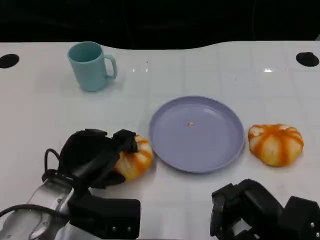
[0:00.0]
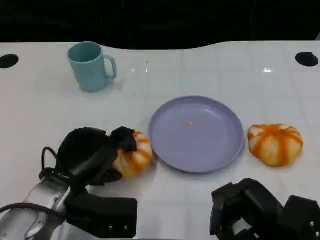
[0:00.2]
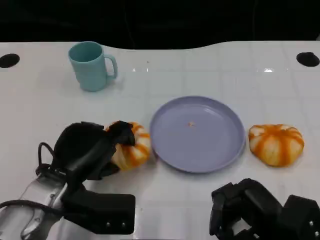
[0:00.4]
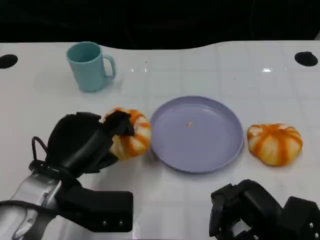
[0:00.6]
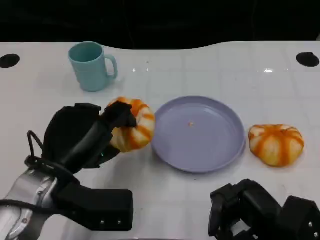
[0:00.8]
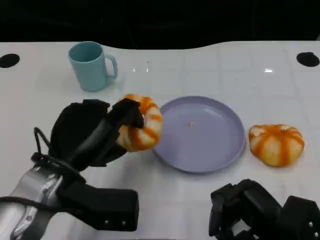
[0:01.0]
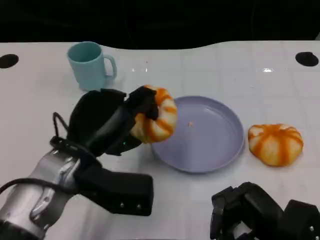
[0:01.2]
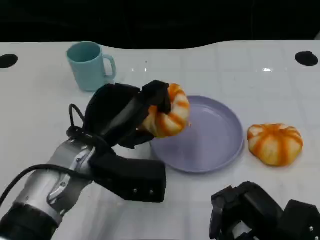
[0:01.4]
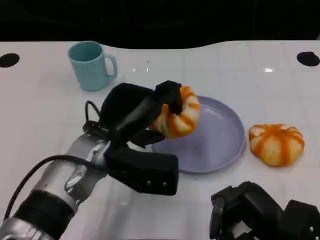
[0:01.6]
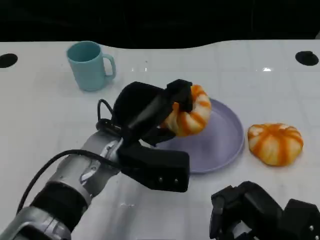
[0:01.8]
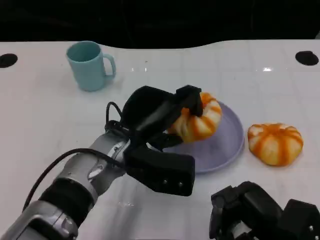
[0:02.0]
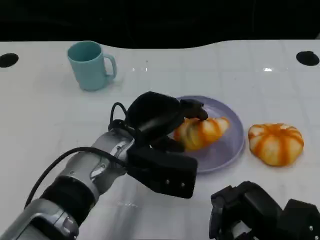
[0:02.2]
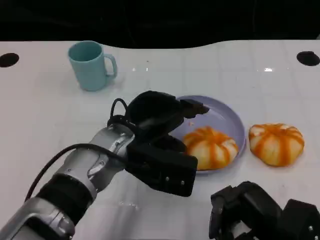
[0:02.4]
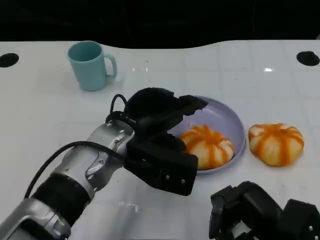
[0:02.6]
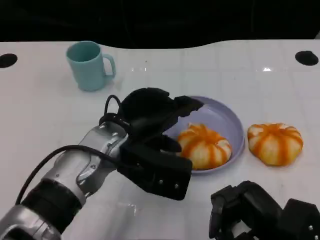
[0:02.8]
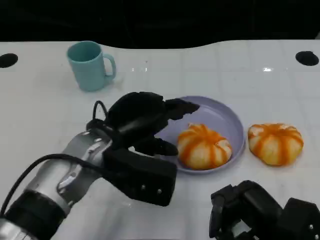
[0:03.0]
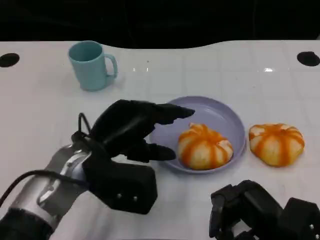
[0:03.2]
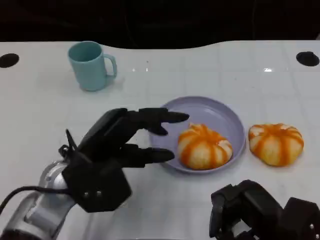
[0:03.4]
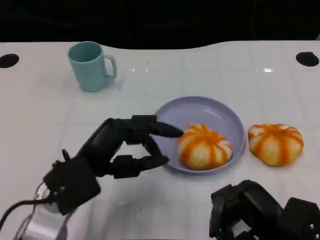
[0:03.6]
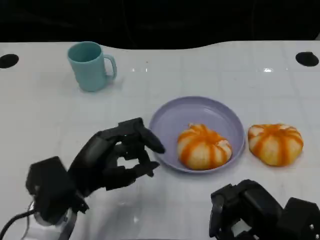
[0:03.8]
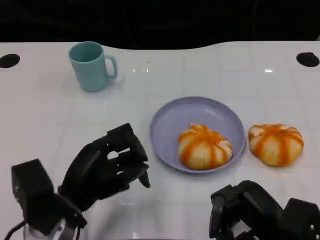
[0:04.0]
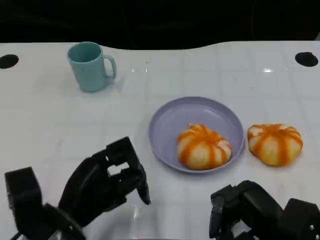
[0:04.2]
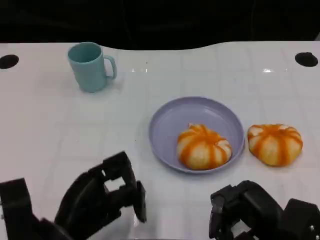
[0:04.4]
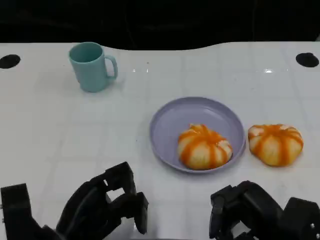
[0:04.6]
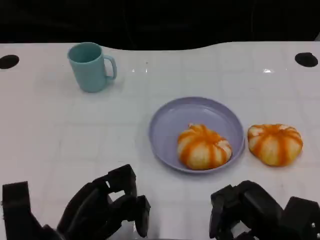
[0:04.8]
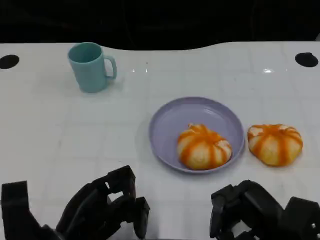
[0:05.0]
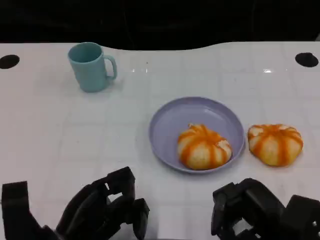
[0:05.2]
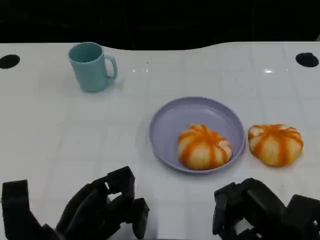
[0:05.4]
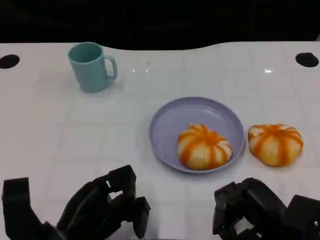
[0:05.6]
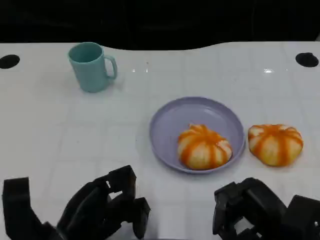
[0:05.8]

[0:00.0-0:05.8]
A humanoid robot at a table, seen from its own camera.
Task of the whole recording: Grasp the bread from the table and place it into the plate.
0:00.0 to 0:01.4: The left hand moves upward, about 5 cm.
0:02.8 to 0:04.4: The left hand is displaced backward, to the left and downward by approximately 15 cm.
0:04.4 to 0:05.8: There are only small adjustments of the hands.

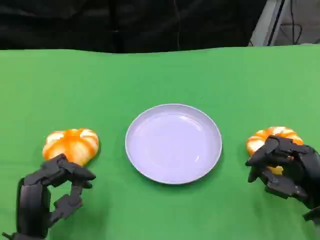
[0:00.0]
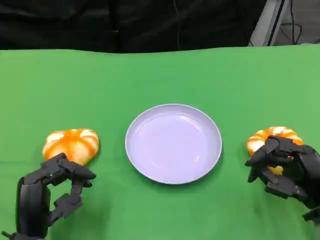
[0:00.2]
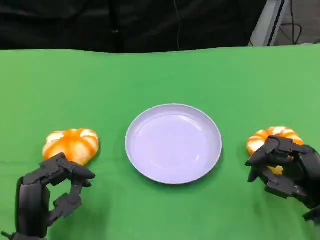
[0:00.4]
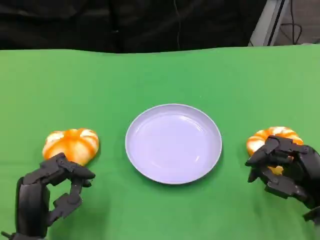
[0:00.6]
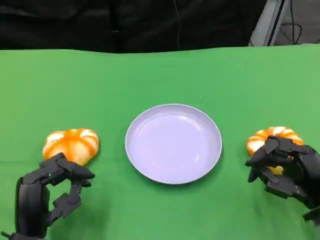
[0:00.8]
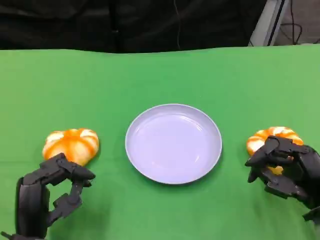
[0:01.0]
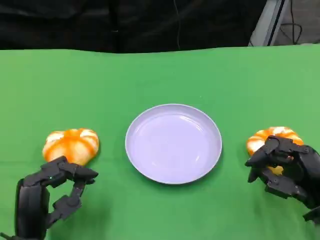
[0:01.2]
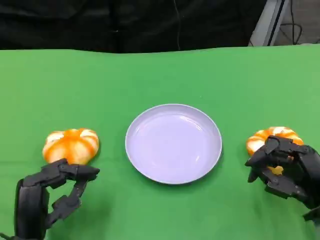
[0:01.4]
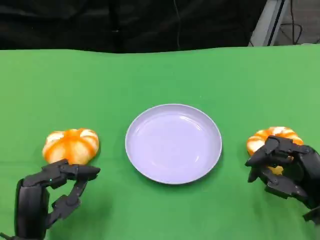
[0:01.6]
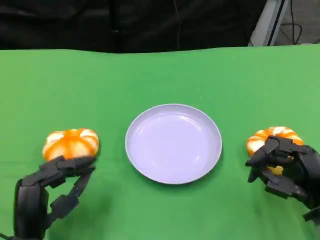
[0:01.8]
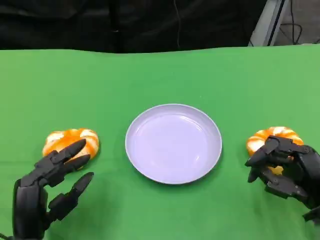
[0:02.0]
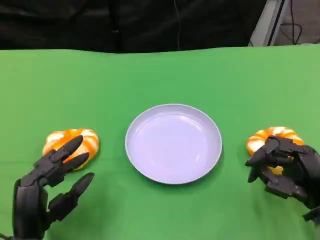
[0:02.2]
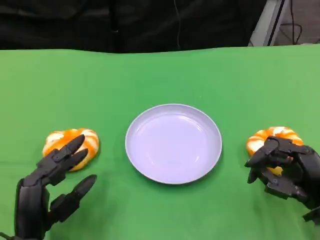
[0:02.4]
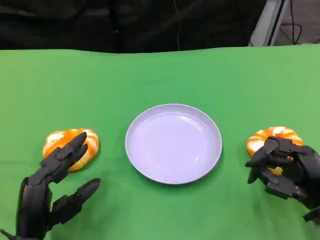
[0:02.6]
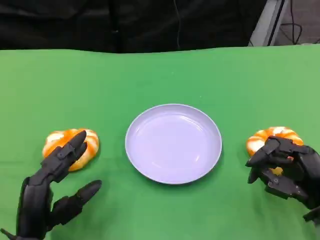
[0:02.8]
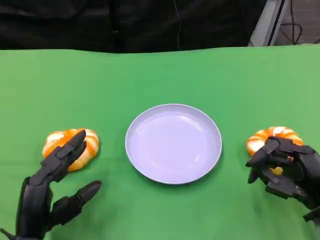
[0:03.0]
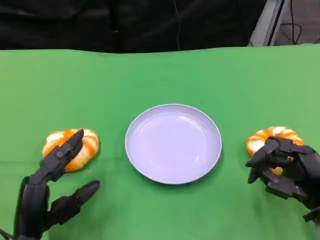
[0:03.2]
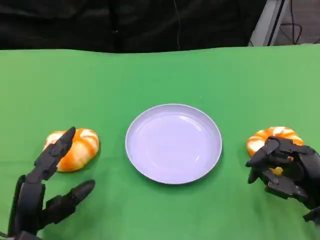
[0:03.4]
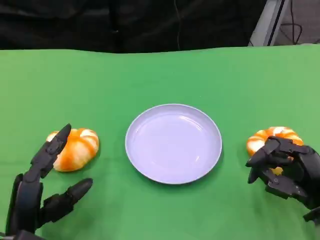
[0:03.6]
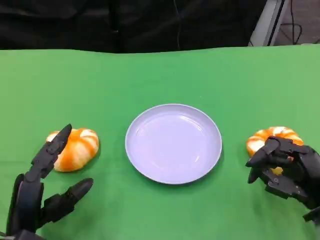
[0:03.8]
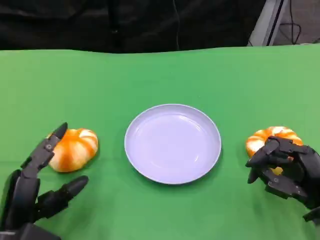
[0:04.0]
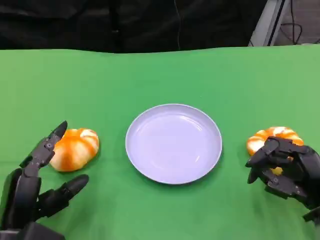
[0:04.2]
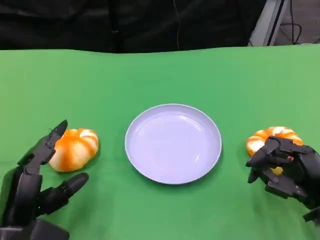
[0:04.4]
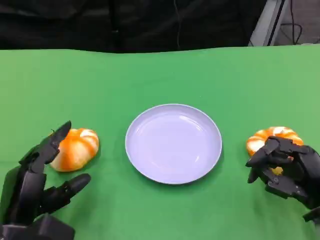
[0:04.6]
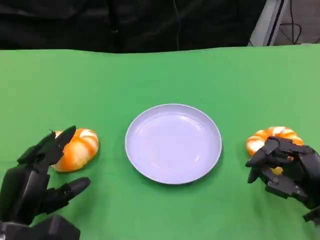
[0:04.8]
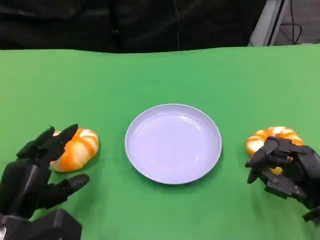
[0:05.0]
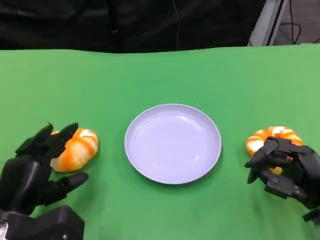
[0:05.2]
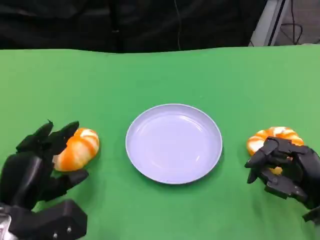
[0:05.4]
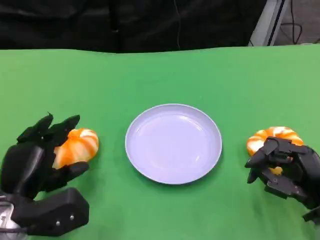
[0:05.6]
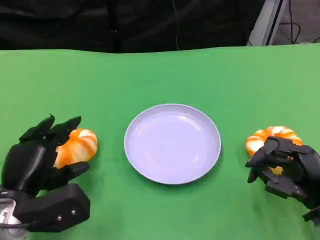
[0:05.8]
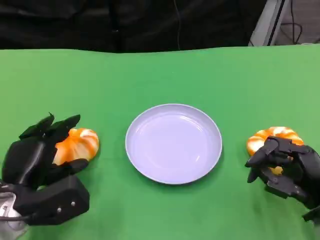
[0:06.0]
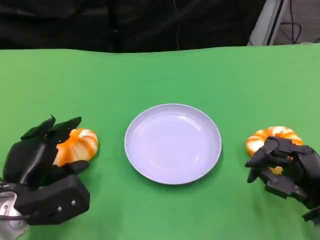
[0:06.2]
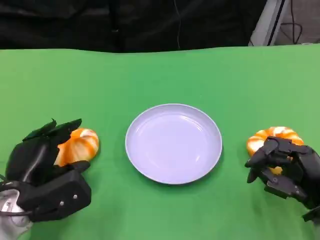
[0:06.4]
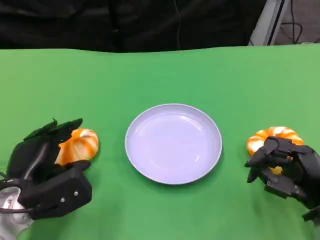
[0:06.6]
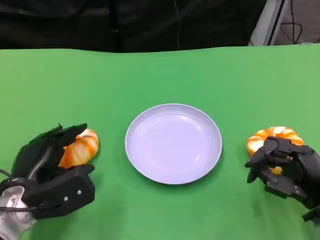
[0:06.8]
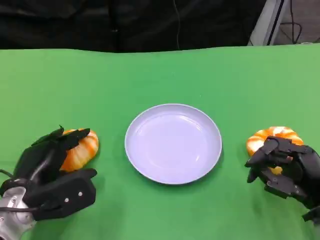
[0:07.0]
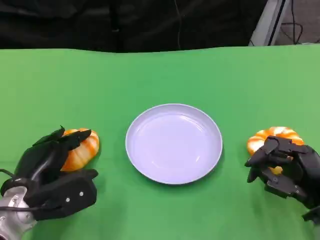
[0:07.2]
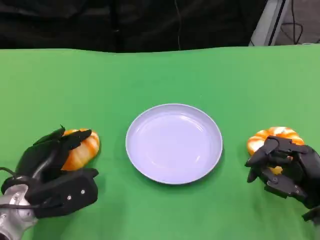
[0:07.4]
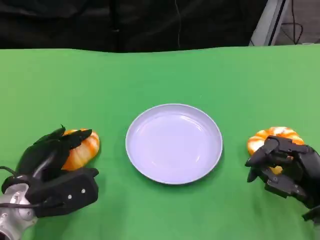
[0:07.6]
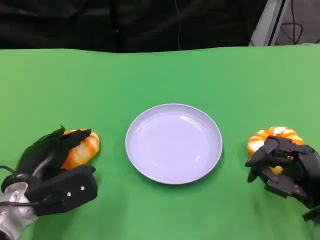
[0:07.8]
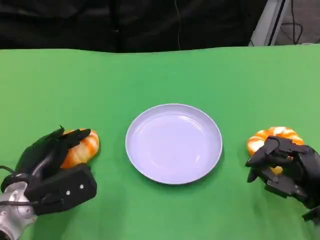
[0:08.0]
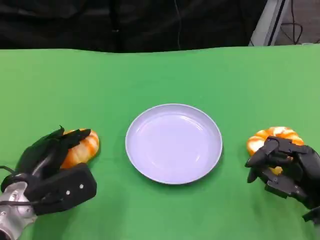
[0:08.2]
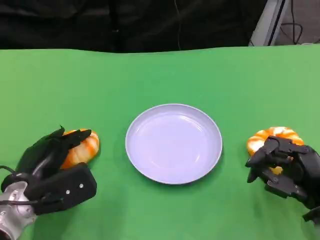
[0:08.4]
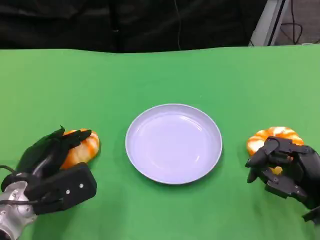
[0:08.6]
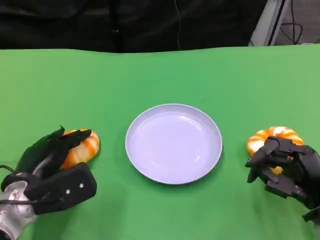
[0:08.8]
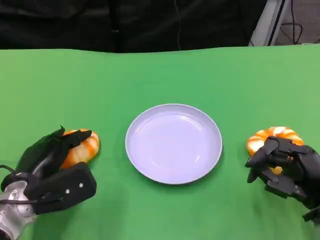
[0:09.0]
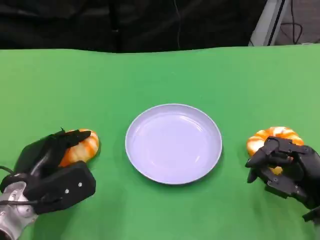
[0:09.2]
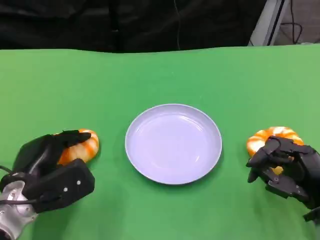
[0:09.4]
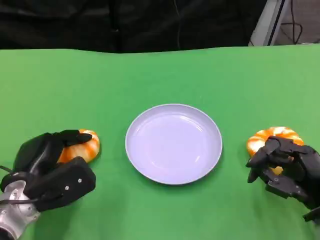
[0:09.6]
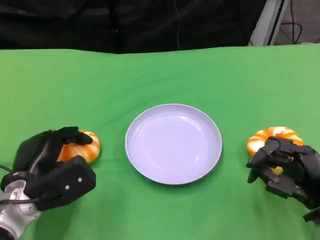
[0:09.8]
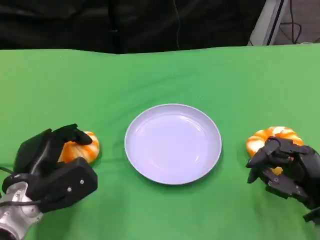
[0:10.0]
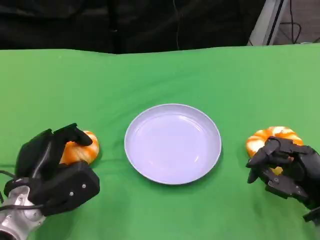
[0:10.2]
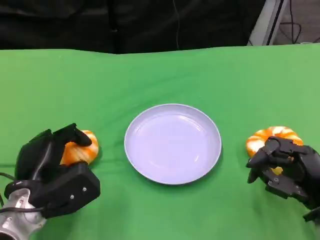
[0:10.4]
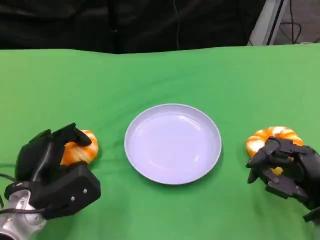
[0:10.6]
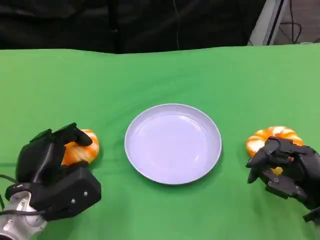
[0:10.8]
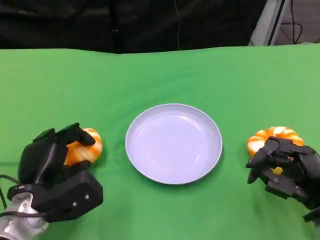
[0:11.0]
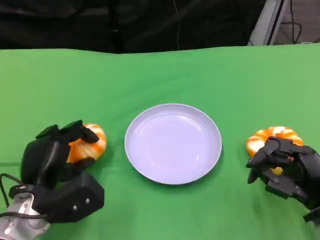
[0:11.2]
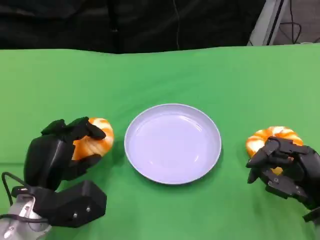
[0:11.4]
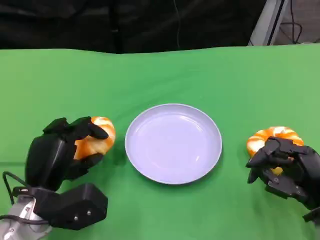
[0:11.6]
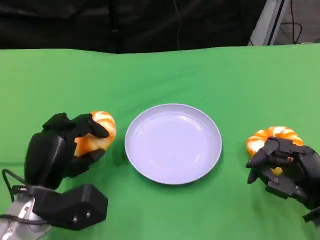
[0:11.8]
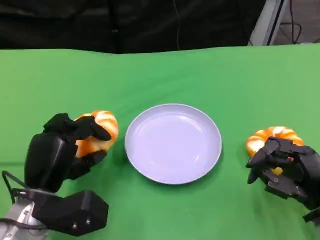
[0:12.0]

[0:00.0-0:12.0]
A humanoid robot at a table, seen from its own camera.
Task of the whole recording: Grasp the bread from the table and place it into the plate.
0:00.0 to 0:01.6: Neither hand changes place.
0:01.6 to 0:03.0: The hands stay close to where they were, moving slightly.
0:04.4 to 0:06.0: The left hand moves forward, about 5 cm.
0:06.0 to 0:07.6: The hands stay close to where they were, moving slightly.
0:07.6 to 0:09.0: Both hands stay put.
0:09.0 to 0:10.4: The hands stay close to where they were, moving slightly.

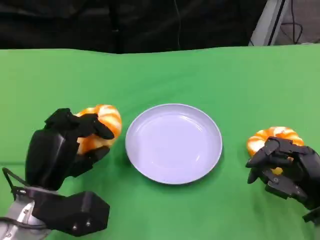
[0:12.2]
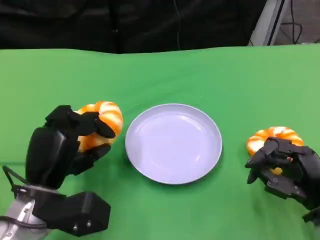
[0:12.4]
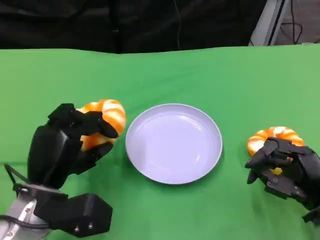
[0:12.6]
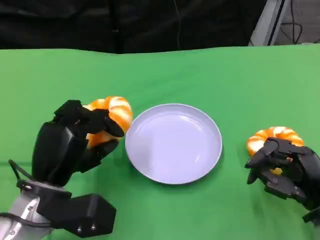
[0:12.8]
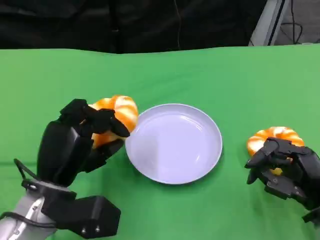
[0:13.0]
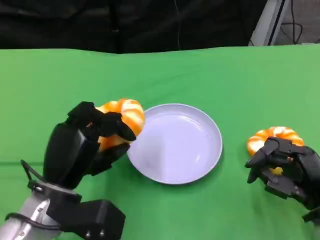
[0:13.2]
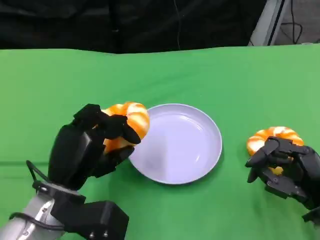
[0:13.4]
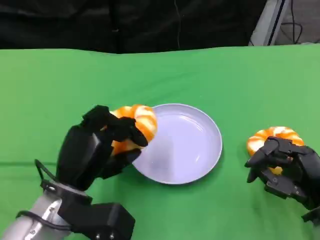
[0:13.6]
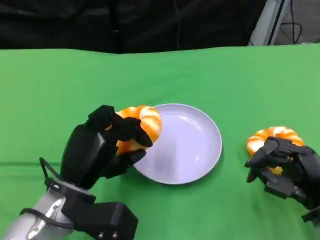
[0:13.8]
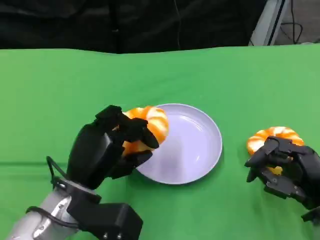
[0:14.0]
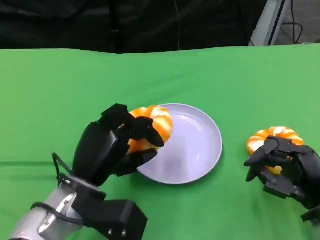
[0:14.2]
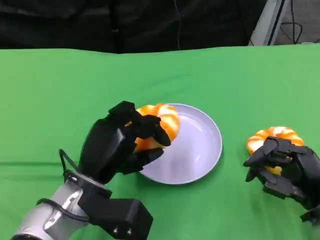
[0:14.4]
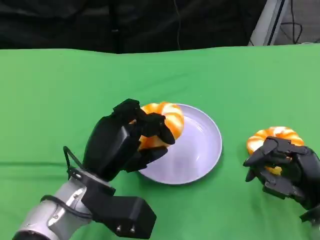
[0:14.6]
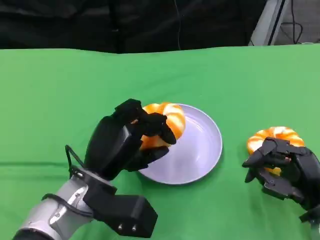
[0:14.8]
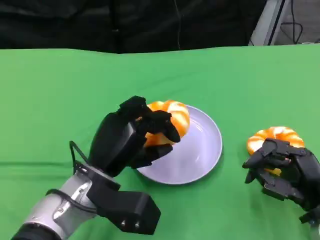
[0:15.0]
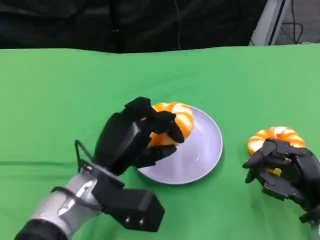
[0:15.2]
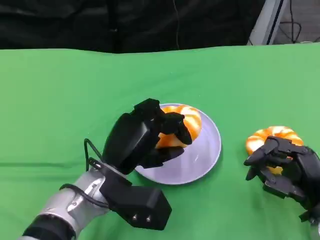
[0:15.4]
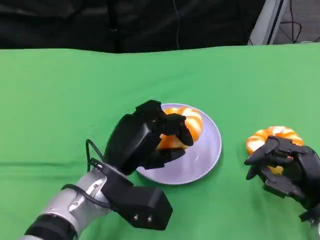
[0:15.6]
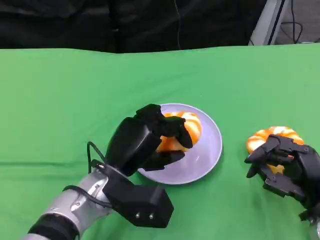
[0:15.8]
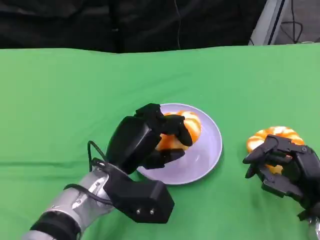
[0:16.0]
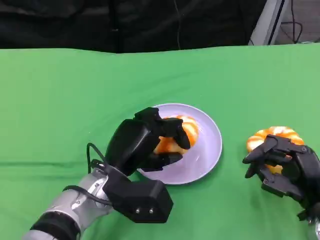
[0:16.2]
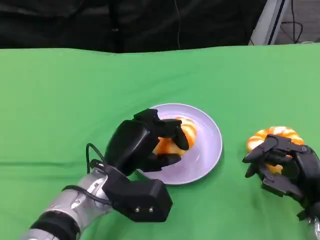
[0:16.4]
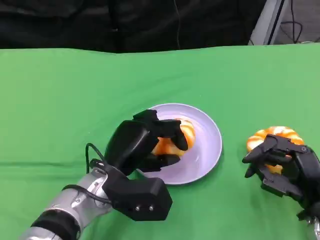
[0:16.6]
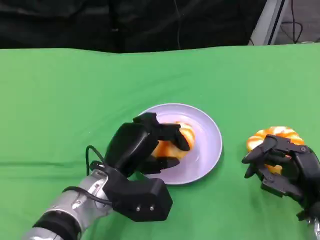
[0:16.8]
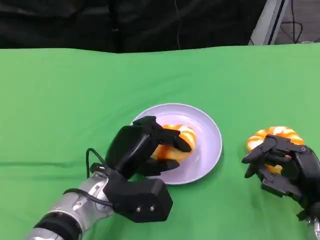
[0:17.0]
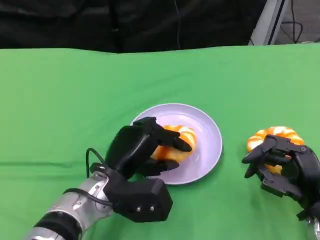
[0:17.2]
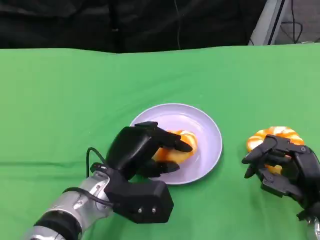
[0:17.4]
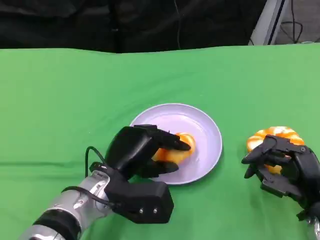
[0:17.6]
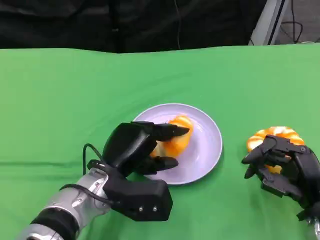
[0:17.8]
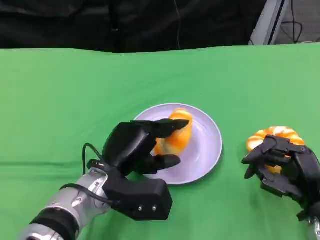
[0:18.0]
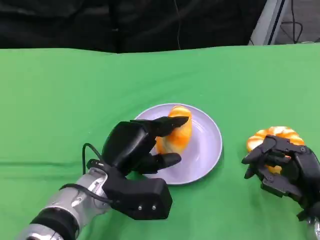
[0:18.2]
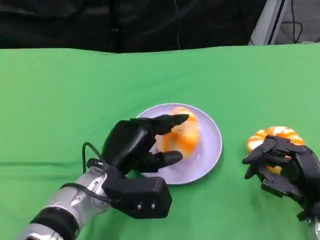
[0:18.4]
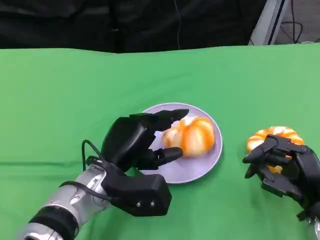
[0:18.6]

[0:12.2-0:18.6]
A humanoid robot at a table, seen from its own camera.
Task of the whole recording: Grasp the bread from the table and place it into the plate.
0:12.2 to 0:13.8: There are only small adjustments of the hands.
0:13.8 to 0:15.4: The left hand moves to the right, some 5 cm.
0:15.4 to 0:18.6: The hands move only a little.
